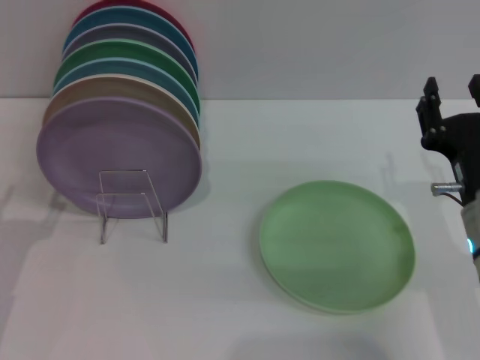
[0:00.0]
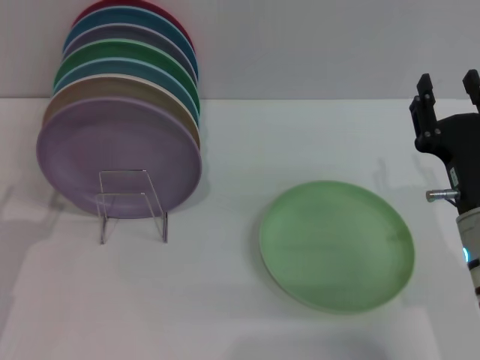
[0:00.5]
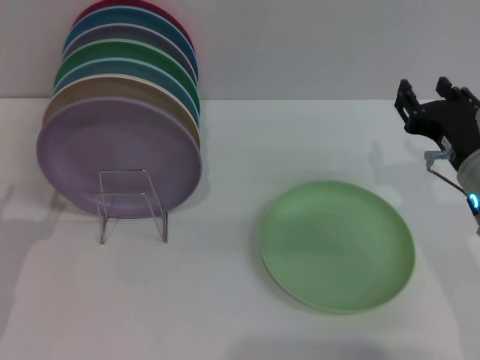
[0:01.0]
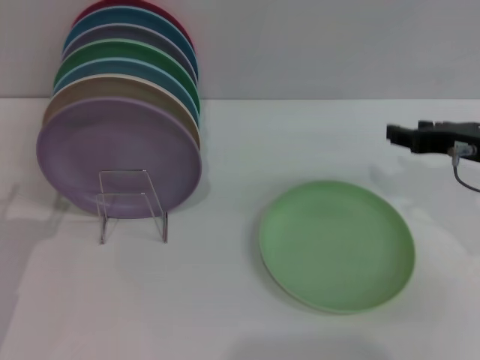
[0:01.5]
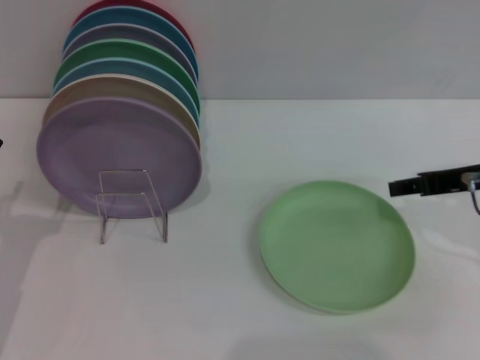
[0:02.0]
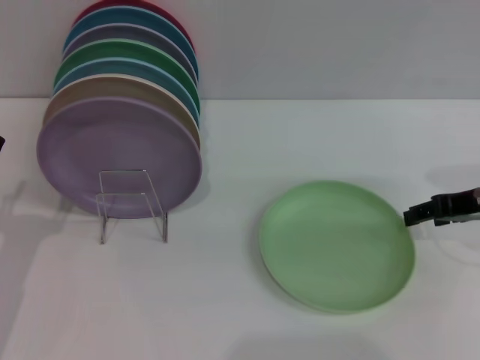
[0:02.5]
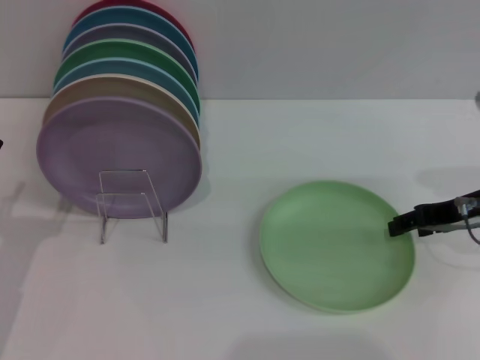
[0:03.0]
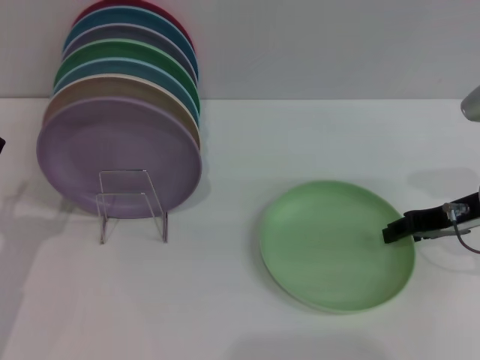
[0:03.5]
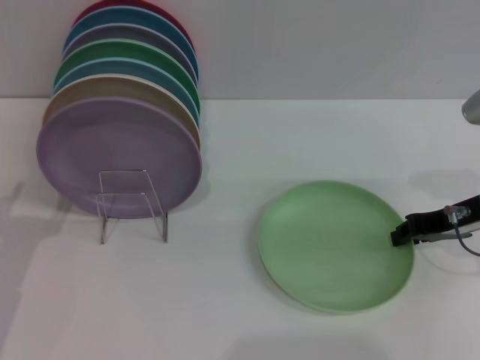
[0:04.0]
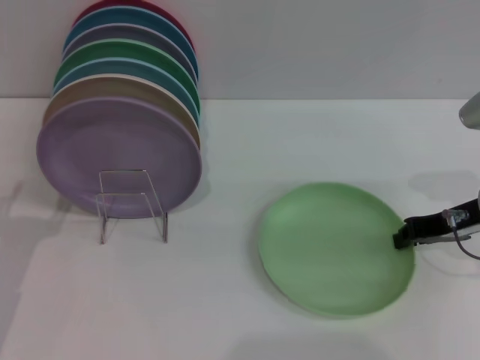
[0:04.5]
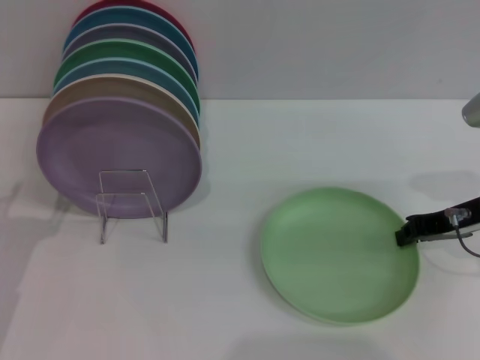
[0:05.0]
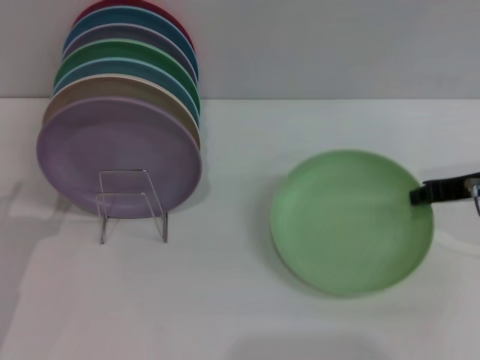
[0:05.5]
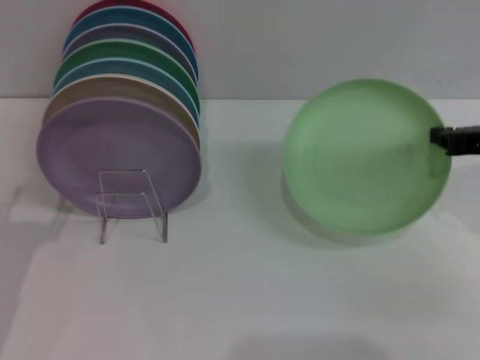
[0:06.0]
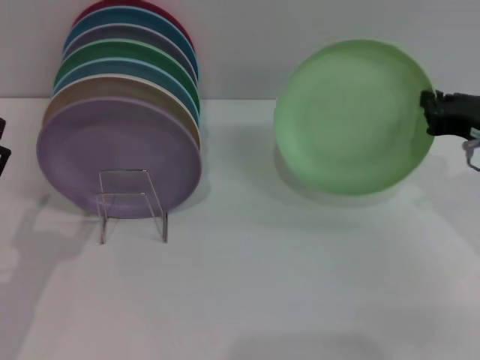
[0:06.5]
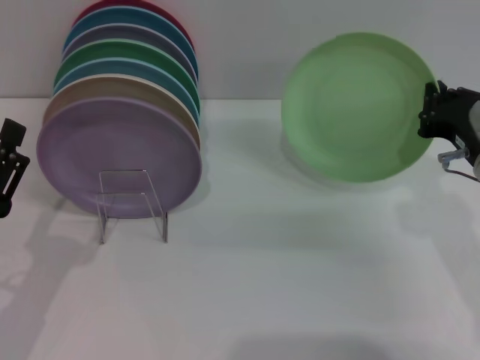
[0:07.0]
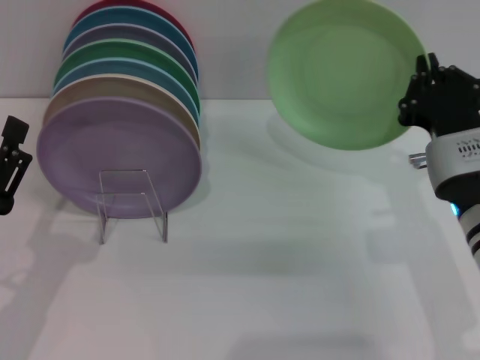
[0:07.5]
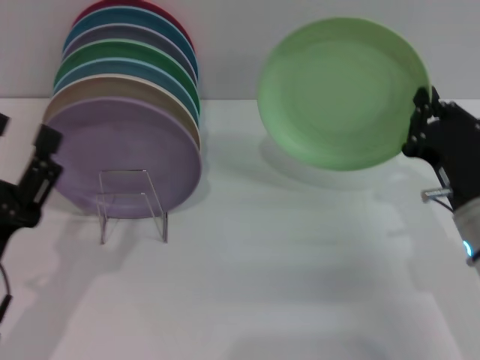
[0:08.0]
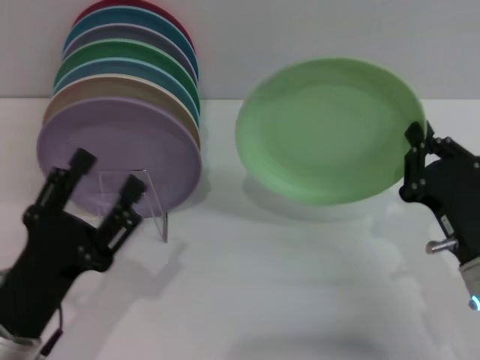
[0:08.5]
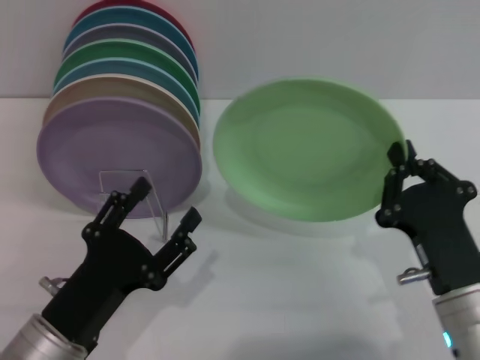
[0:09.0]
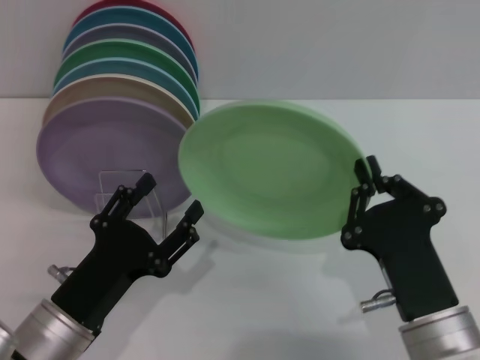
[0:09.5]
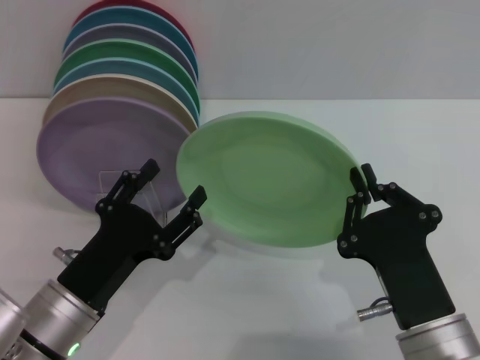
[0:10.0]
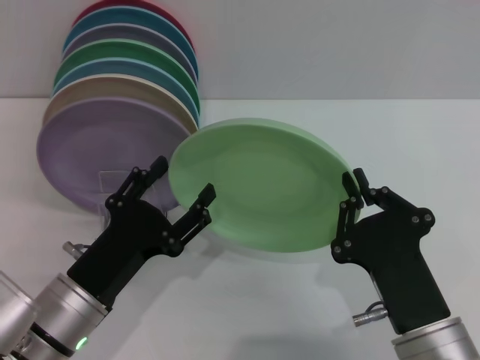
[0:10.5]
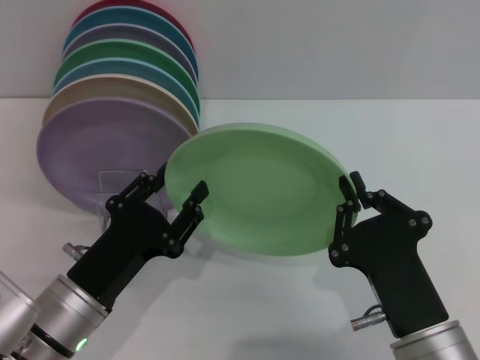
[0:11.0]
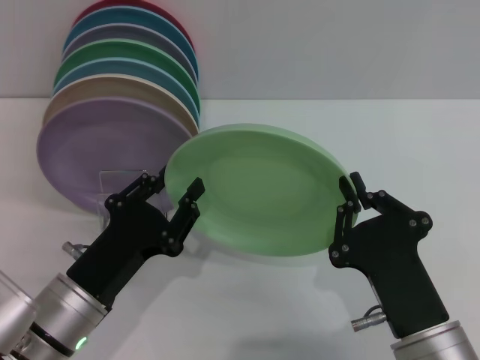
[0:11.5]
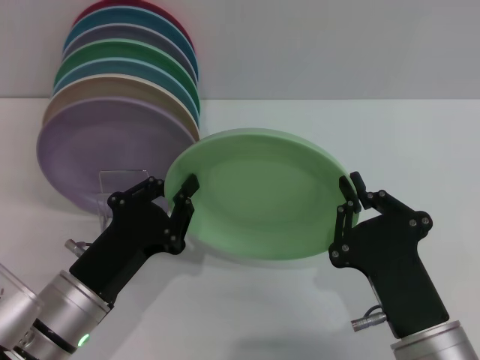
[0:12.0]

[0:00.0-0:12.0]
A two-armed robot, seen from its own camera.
Task of the whole recording: Grip the plate with one hand, pass it to the other, then set it on the shelf.
Step, 0:00.0 to 0:06.0: Pick up the plate with the right gripper.
0:00.0 to 0:02.0: The right gripper shifts approximately 10 cm upward, to the right and forward.
0:02.0 to 0:04.0: The right gripper shifts by about 5 cm, and closes up.
0:04.0 to 0:06.0: The right gripper is displaced upward by about 5 cm.
0:06.0 to 0:08.0: The right gripper heads downward and to the left, covering some 15 cm.
0:08.0 to 0:10.0: The left gripper heads to the right, covering roughly 5 cm, while the right gripper goes about 15 cm backward and to the left.
0:10.0 to 0:12.0: The left gripper closes its fingers.

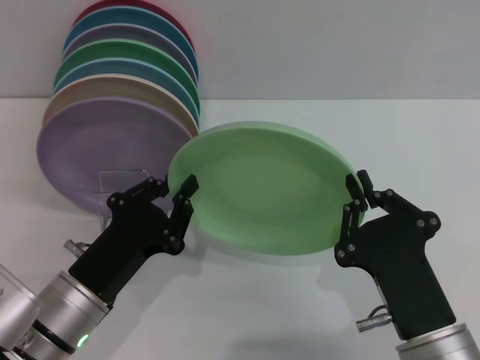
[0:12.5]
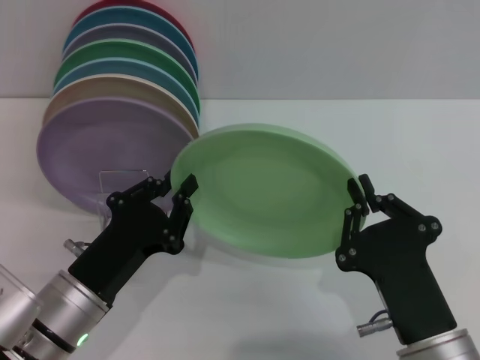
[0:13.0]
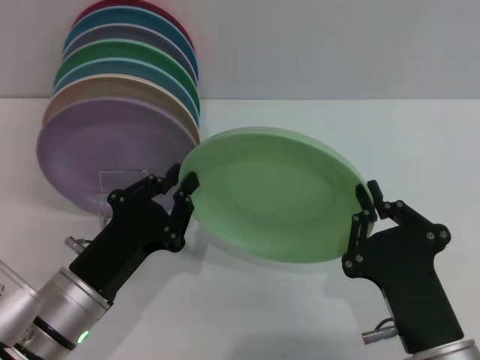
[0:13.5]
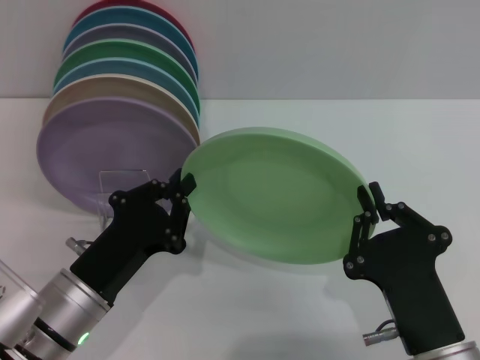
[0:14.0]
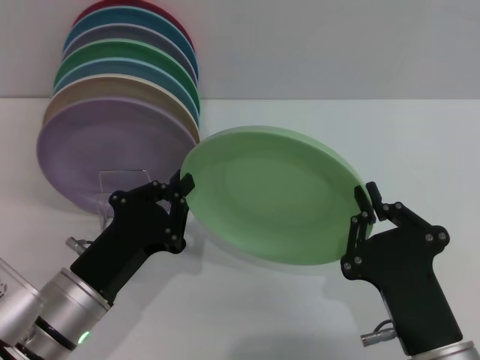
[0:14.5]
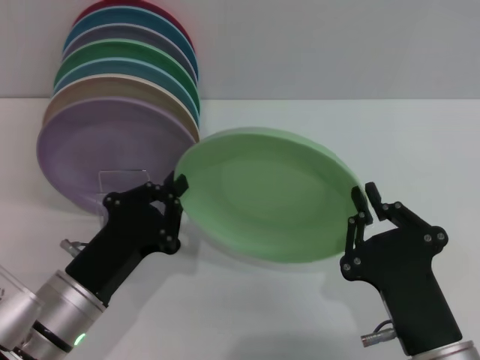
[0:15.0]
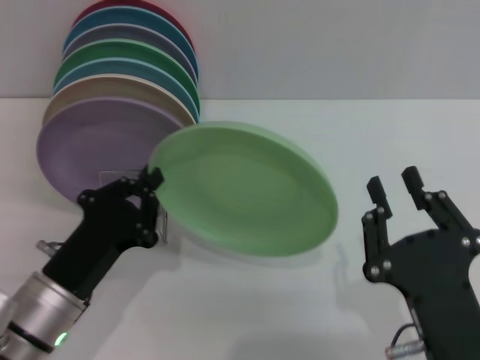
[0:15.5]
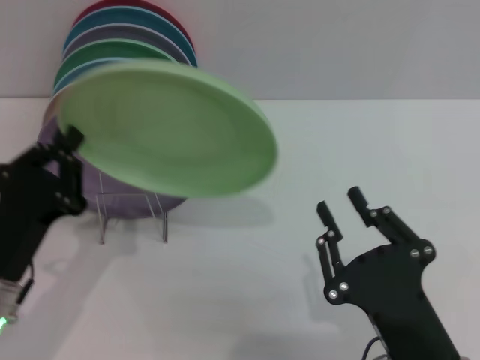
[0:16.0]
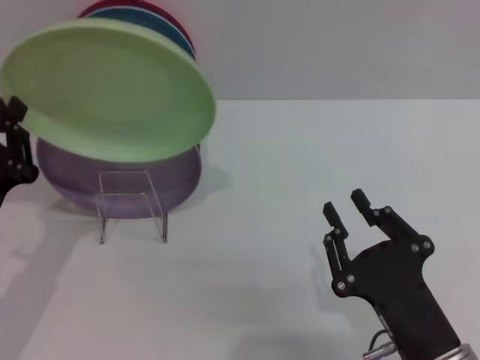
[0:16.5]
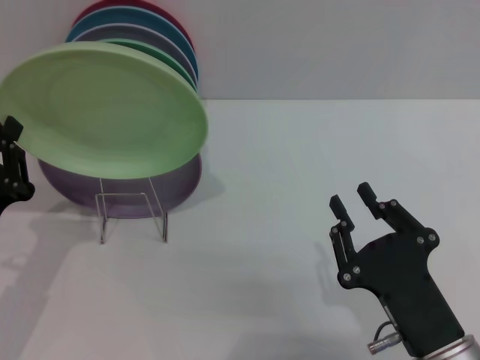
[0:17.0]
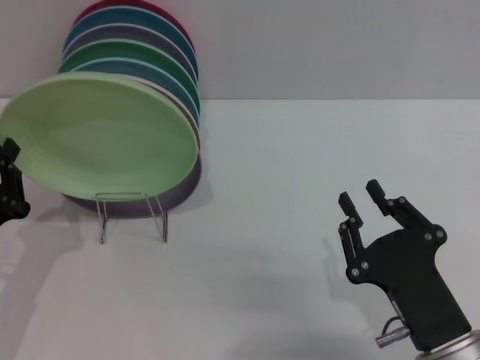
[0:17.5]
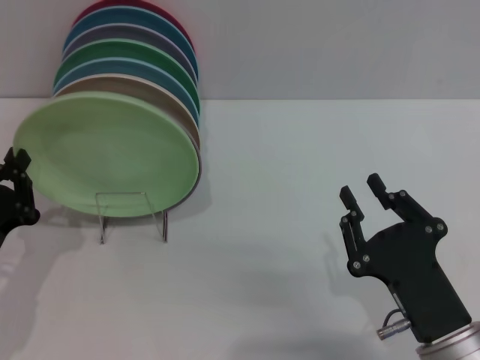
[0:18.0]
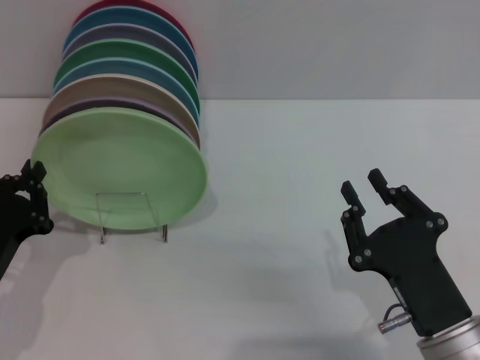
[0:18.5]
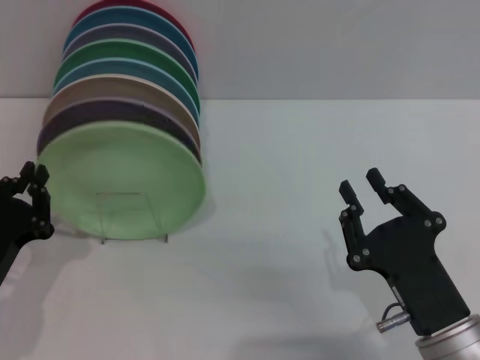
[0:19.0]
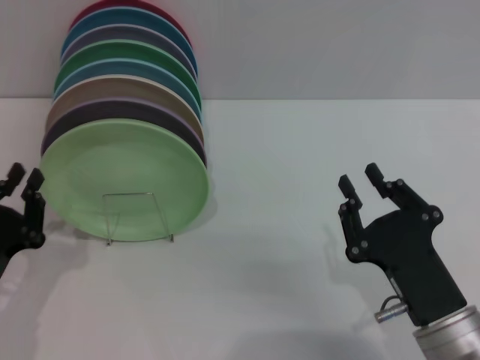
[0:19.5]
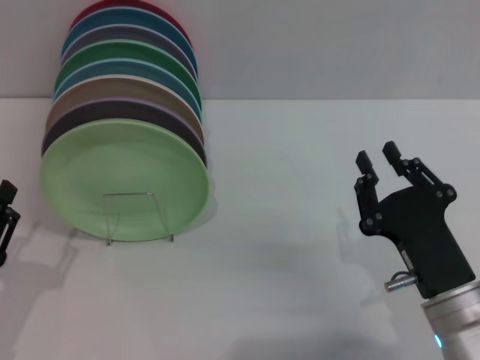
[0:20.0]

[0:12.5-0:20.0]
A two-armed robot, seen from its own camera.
Task of the whole recording: Grip the plate with one hand, pass it to the other, then set it on the shelf.
Step, 0:12.5 to 0:15.5: Pass the plate from the right gripper to the left gripper.
Step, 0:16.0 to 0:19.5: Place the plate on the shelf with the left gripper.
0:12.5 to 0:14.5: The two grippers keep their place.
0:14.5 to 0:16.5: The right gripper opens up; the left gripper shifts about 10 cm to the left.
0:18.0 to 0:20.0: The left gripper moves backward, approximately 5 cm, and opens its fingers.
